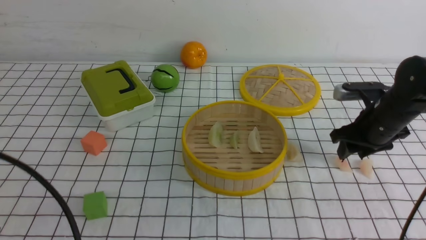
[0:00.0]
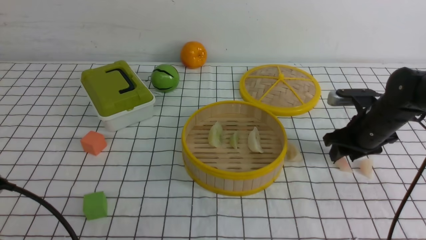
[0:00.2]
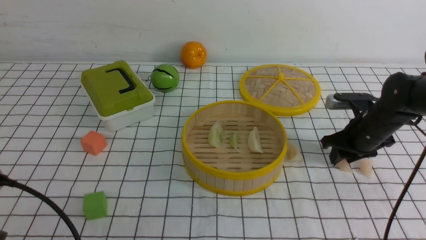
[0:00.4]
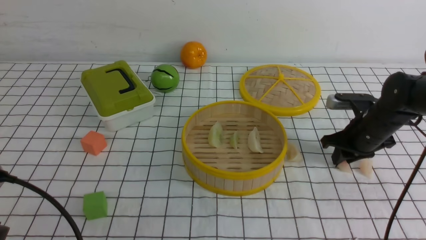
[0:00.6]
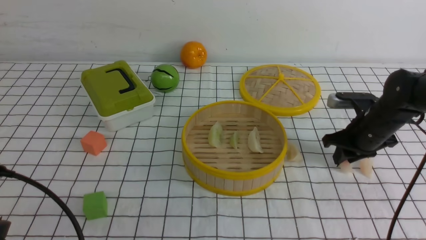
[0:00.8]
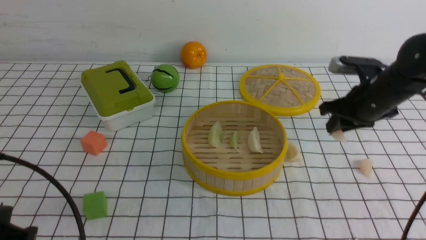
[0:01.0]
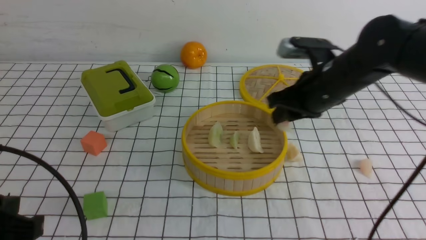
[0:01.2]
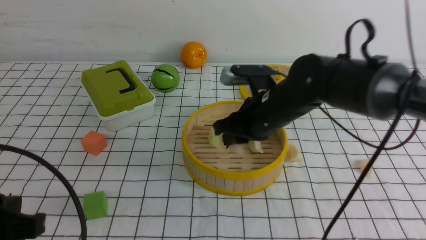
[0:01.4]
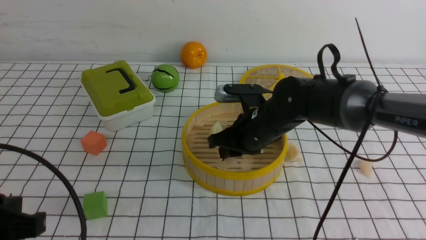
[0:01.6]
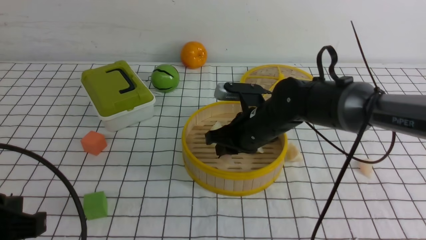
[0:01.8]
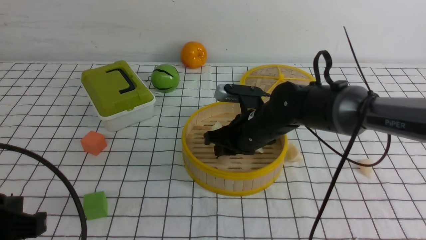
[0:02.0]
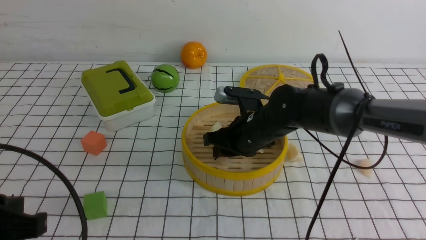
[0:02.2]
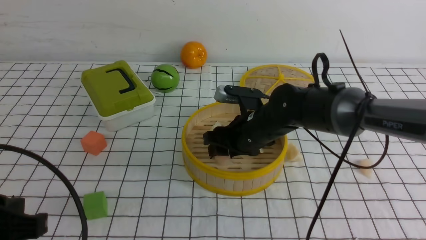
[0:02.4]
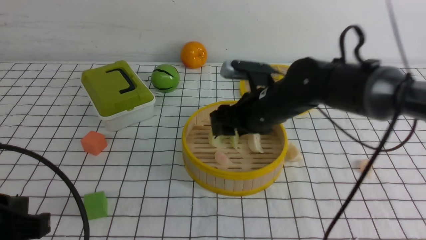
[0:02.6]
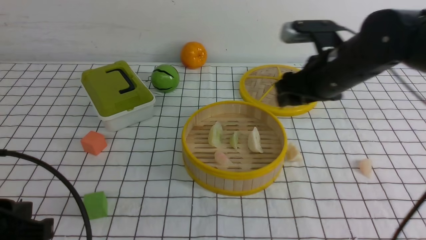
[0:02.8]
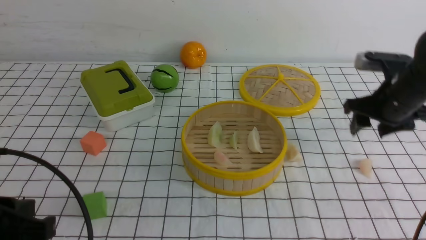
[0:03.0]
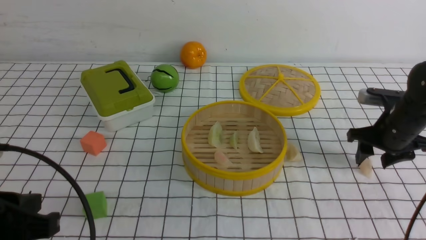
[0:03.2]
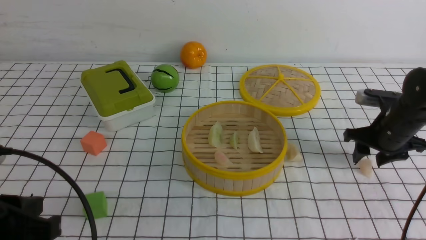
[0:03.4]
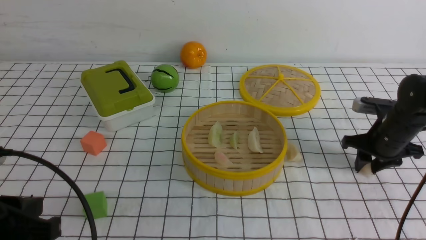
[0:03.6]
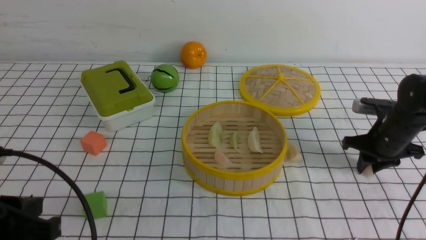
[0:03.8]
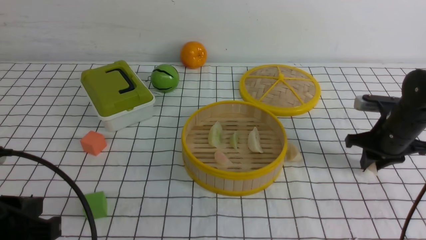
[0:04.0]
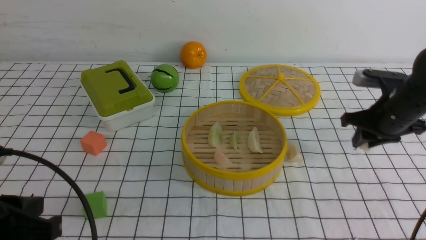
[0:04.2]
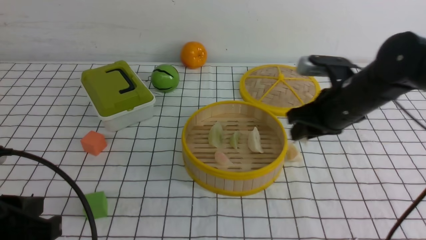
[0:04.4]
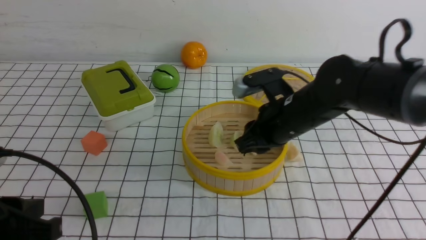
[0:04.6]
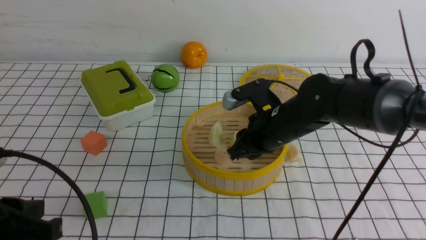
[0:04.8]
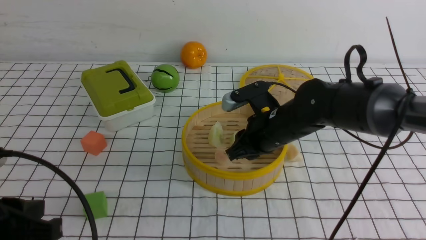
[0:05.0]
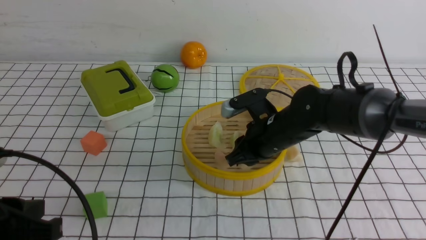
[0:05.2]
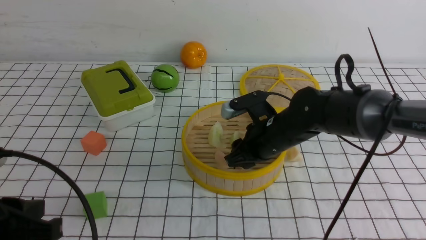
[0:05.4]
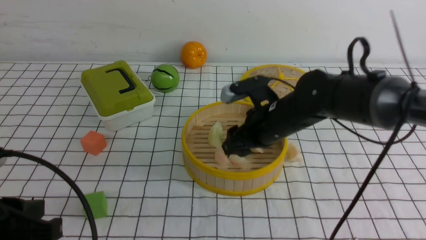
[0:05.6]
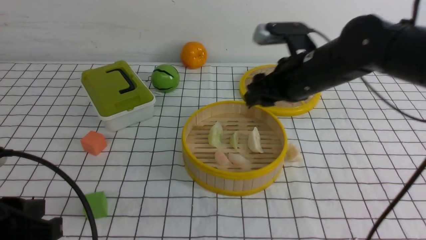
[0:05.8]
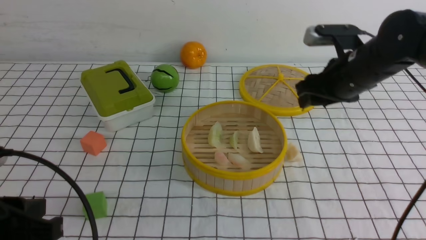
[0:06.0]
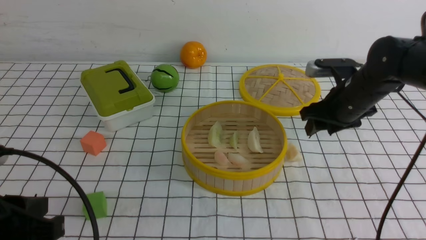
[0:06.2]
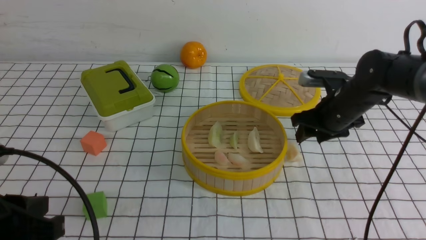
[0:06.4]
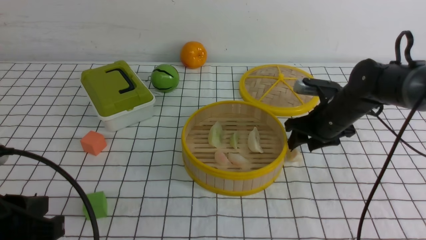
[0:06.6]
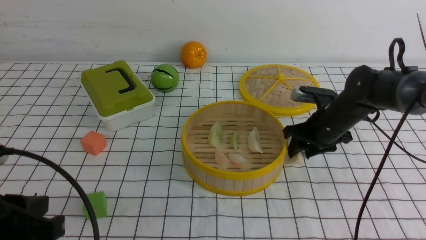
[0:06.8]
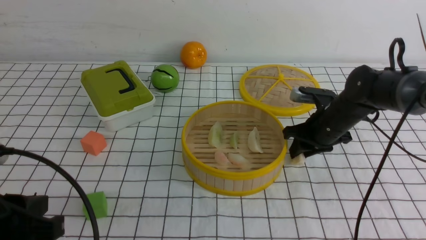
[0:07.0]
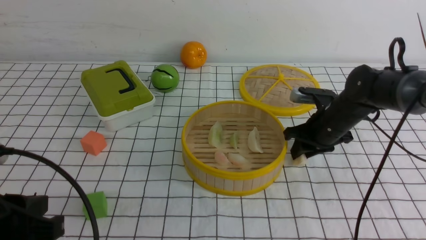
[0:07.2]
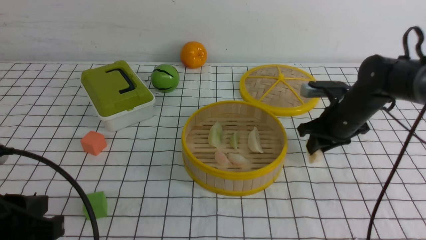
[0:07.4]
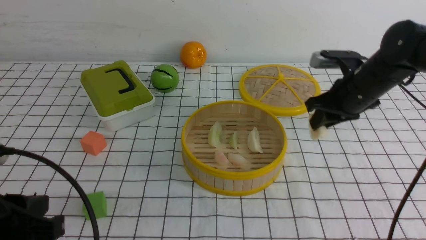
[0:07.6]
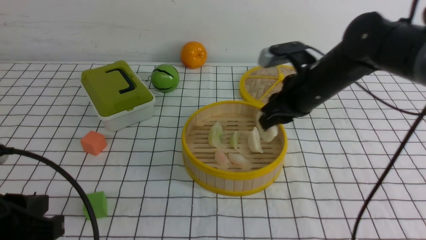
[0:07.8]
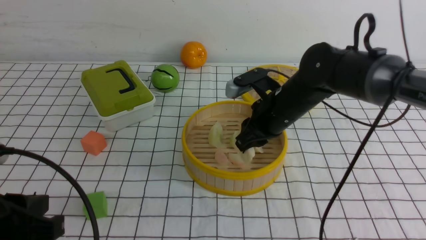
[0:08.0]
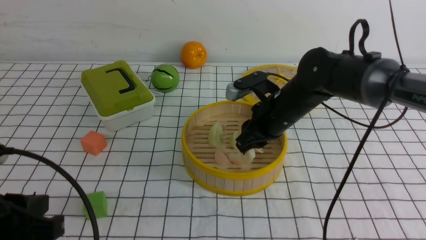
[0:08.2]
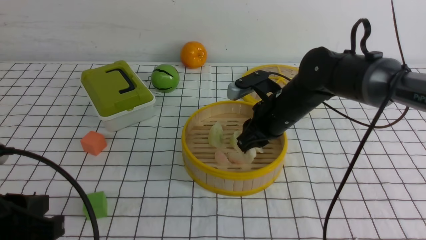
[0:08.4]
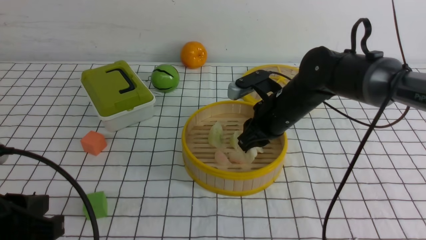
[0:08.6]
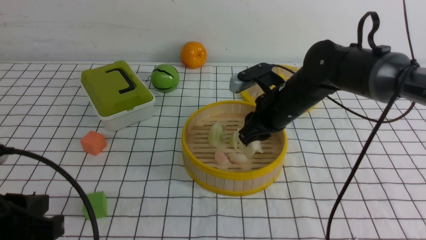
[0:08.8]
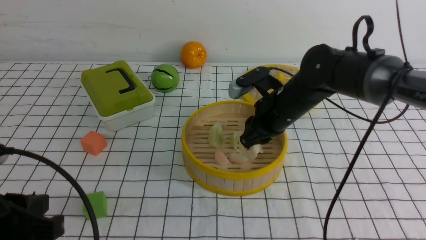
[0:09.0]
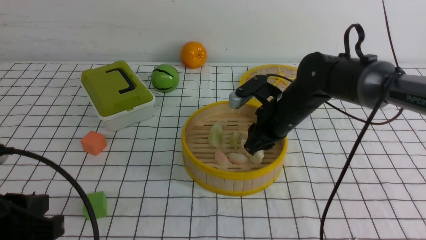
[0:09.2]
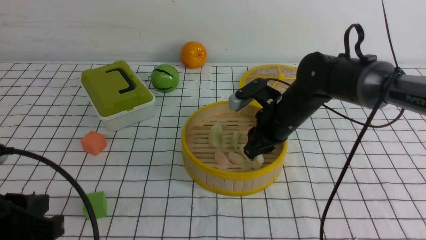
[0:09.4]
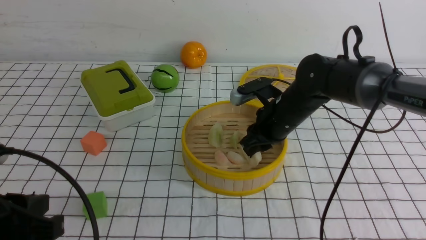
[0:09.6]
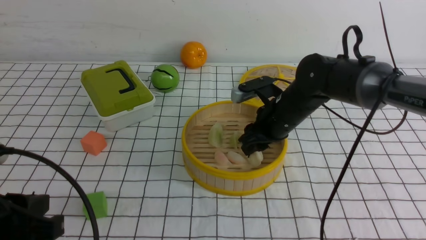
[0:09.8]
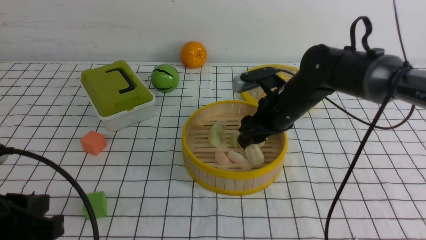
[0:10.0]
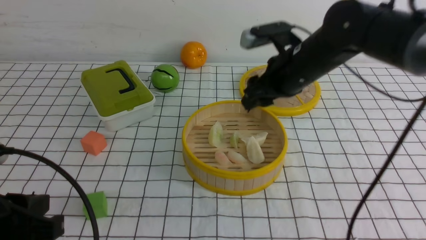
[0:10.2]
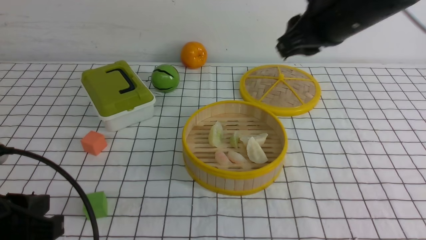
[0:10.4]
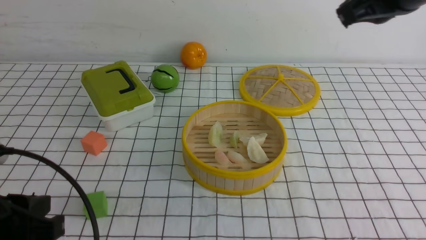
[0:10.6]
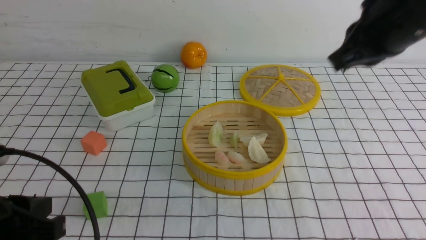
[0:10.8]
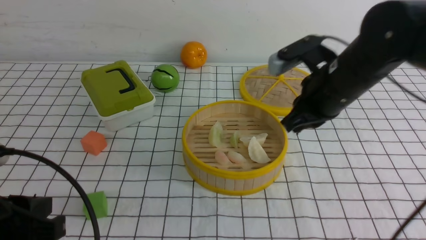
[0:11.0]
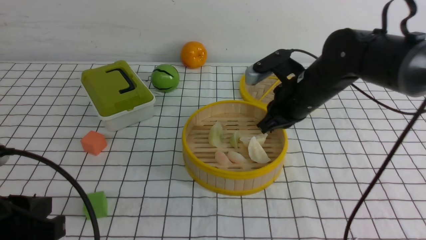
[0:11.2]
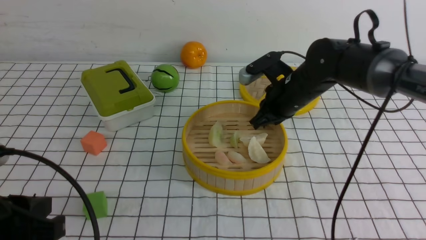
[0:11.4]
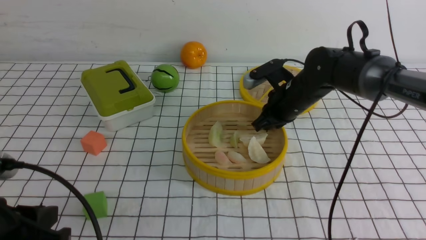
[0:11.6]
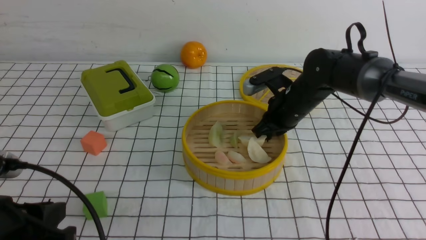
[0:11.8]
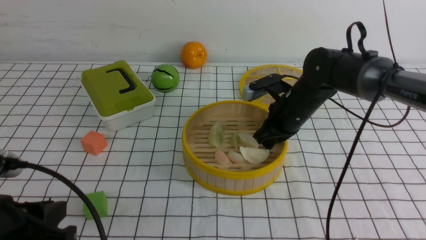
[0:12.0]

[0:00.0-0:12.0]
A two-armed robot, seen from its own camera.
Task of the whole recording: put the dumplings into the steamer on the table with the white tablecloth.
Step, 0:01.0 to 0:02.6: use the right arm to put the dumpling into the steamer.
Step, 0:02.8 to 0:04.2: use the right arm to grab a dumpling.
Step, 0:04.4 to 0:05.6: use the right arm to put the dumpling into the steamer.
Step, 0:05.8 to 0:07.4: use the right arm to grab a dumpling.
Step, 0:07.8 to 0:10.6: use the right arm to put the dumpling into the steamer.
0:00.0 to 0:01.6: The right gripper shifts some 20 cm to the left, and closes up. The left gripper shifts by approximately 5 cm.
0:01.6 to 0:03.0: The right gripper goes about 20 cm to the right, and opens.
0:03.0 to 0:04.4: The right gripper goes about 10 cm to the left, and closes.
0:04.4 to 0:06.0: The right gripper travels to the left and back again, about 10 cm each way, and opens its fingers.
0:06.0 to 0:07.6: The right gripper reaches some 10 cm downward, then returns, and closes.
0:07.6 to 0:09.0: The right gripper travels to the left by approximately 10 cm.
0:09.0 to 0:10.4: The right gripper is displaced upward by approximately 20 cm, and opens, then closes again.
0:10.4 to 0:12.0: The right gripper heads downward and forward, covering some 25 cm, and closes its fingers.

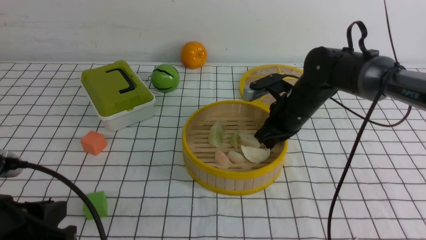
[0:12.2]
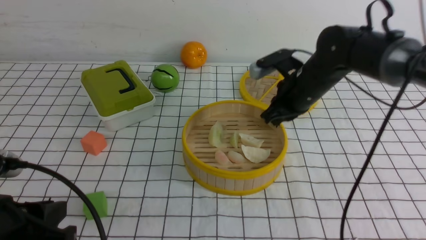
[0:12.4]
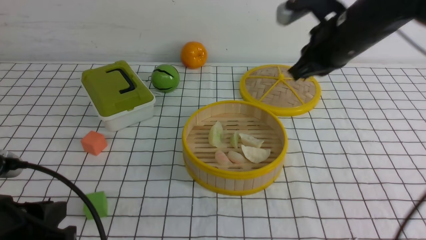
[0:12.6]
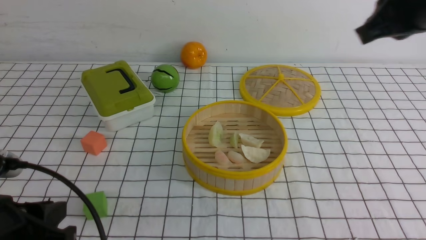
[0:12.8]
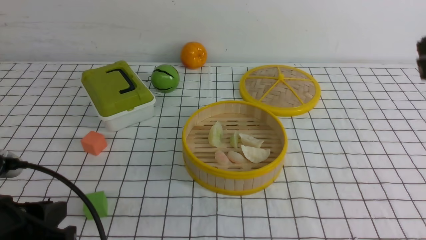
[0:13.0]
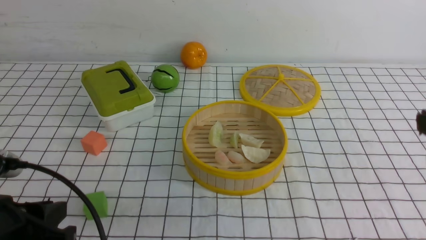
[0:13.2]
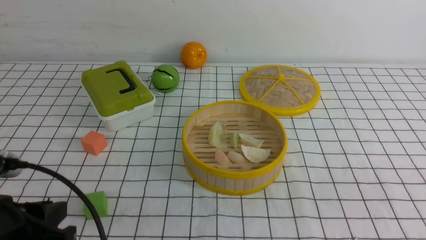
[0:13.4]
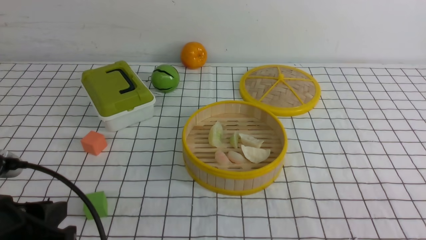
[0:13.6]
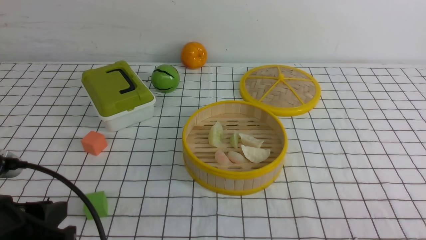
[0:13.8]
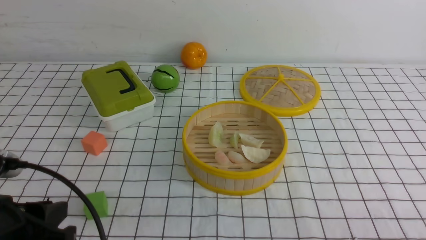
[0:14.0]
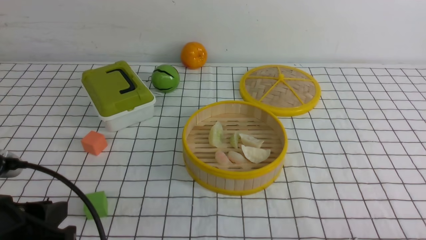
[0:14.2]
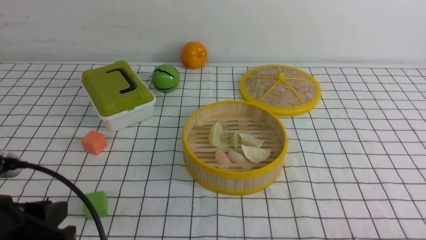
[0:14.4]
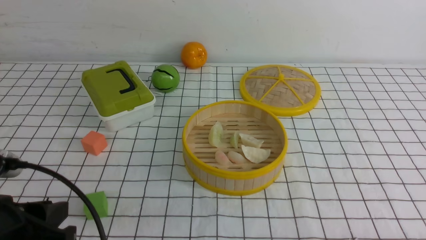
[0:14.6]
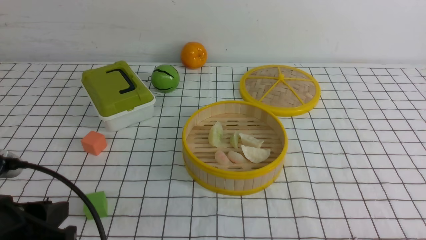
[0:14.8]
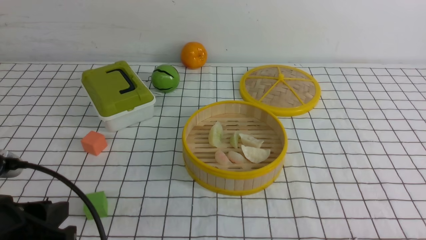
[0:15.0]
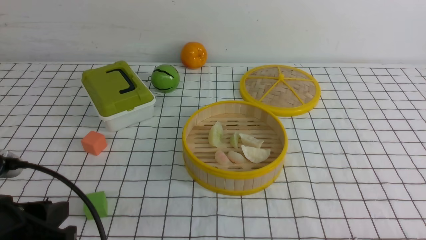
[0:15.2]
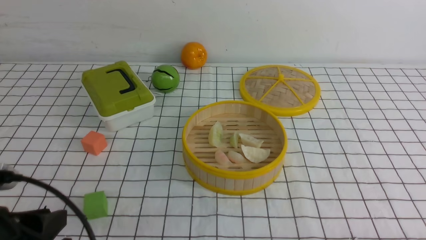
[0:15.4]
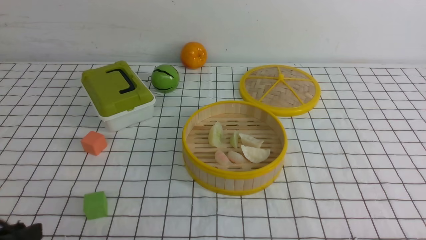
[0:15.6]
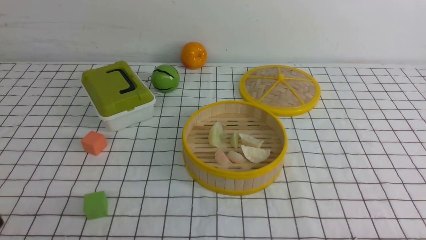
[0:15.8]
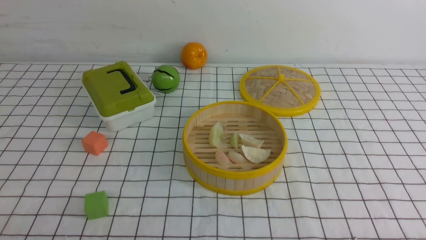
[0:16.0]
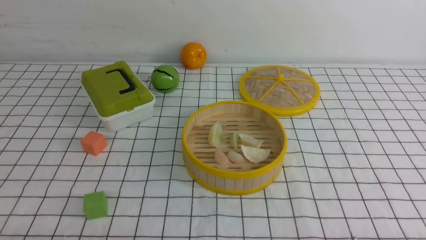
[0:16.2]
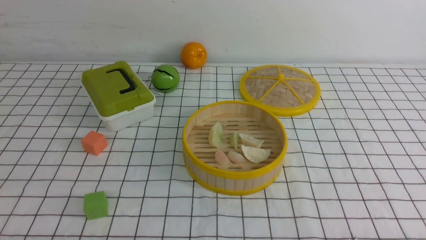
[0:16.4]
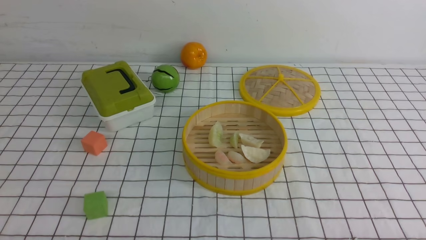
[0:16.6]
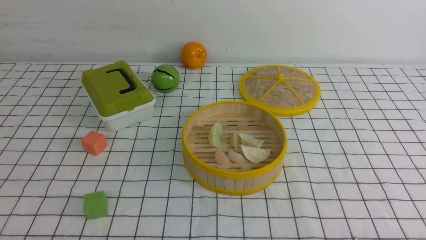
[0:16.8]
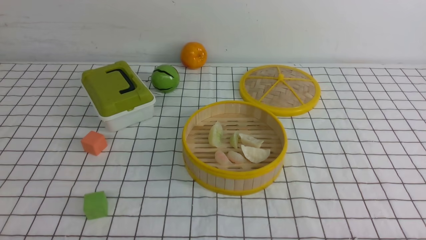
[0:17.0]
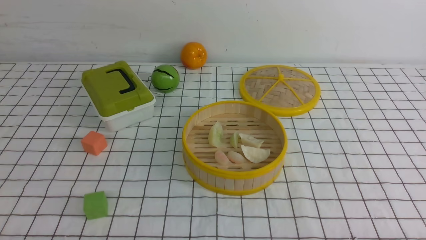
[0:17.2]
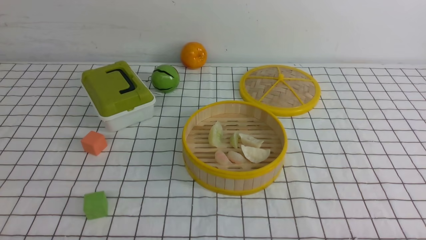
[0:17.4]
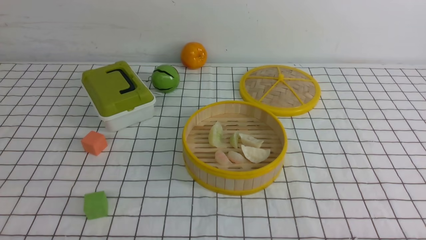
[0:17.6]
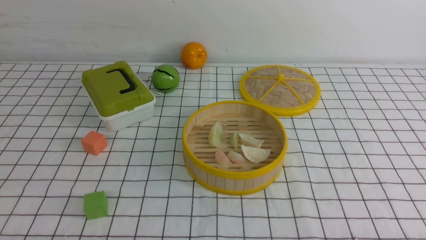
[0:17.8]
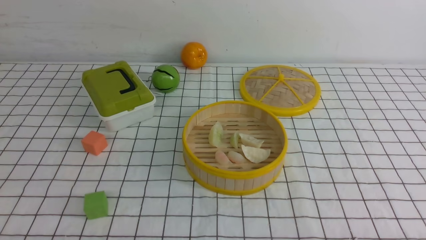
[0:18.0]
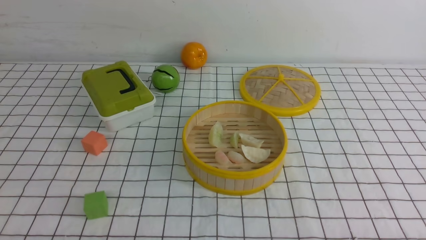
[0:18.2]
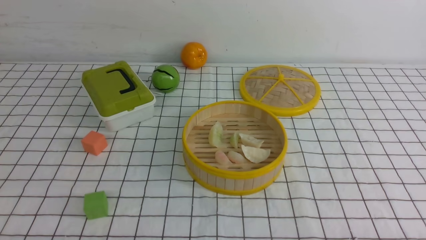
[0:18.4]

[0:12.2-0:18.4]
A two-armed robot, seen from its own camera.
Task of the whole recording: put the dumplings into the steamer on the table with the white tablecloth.
0:12.2 to 0:13.8: The right gripper is displaced backward by about 35 cm.
0:15.4 to 0:16.8: The left gripper heads downward and backward, covering approximately 10 cm, and closes its fingers.
0:16.8 to 0:18.4: Neither gripper changes place.
